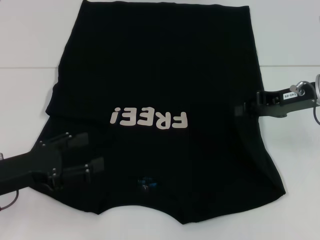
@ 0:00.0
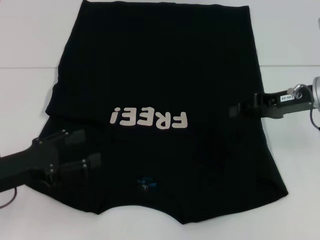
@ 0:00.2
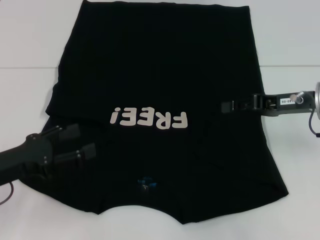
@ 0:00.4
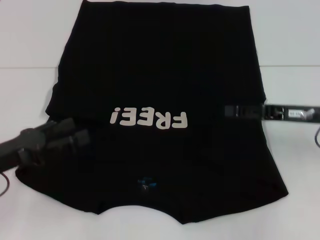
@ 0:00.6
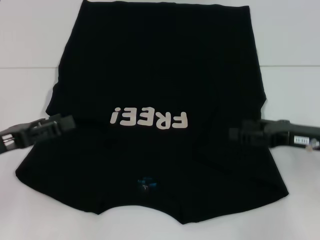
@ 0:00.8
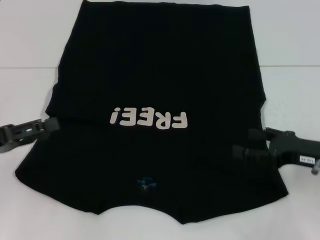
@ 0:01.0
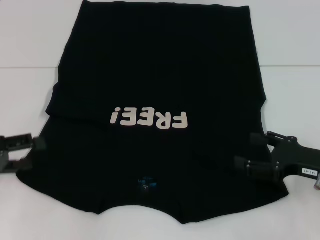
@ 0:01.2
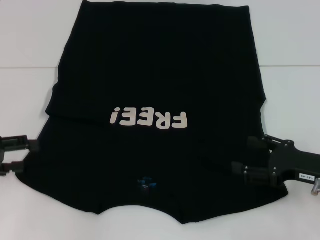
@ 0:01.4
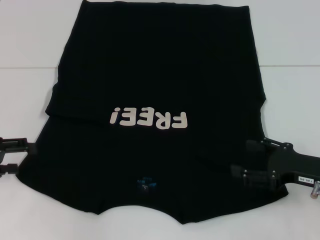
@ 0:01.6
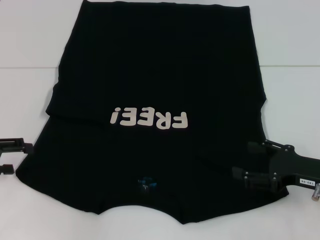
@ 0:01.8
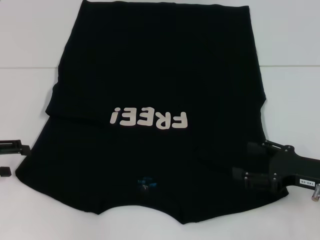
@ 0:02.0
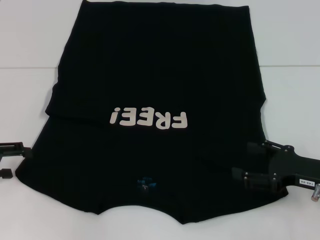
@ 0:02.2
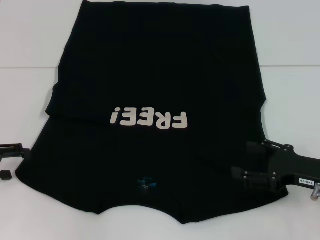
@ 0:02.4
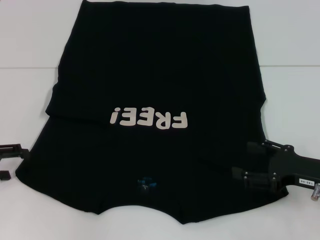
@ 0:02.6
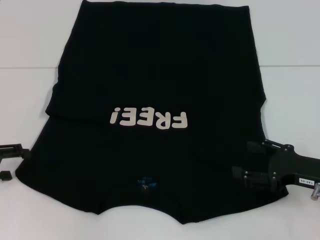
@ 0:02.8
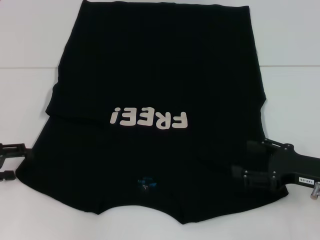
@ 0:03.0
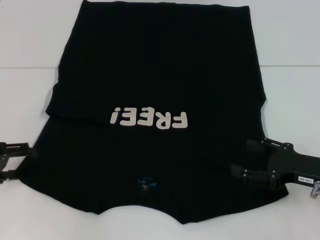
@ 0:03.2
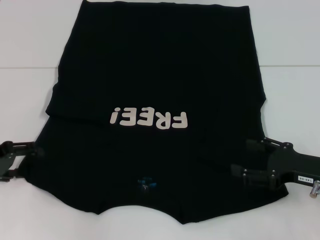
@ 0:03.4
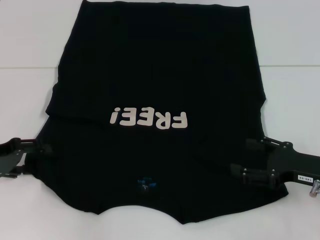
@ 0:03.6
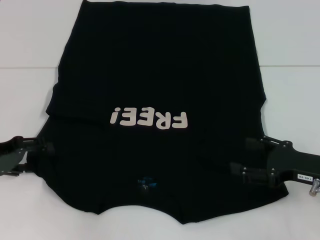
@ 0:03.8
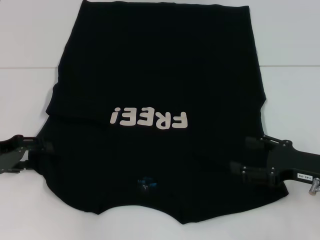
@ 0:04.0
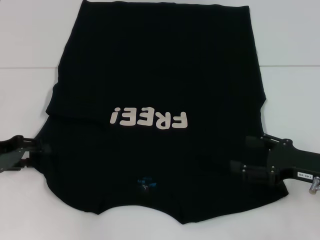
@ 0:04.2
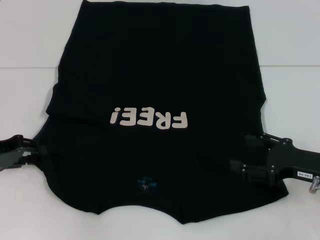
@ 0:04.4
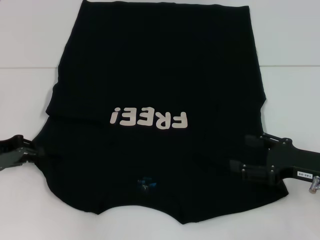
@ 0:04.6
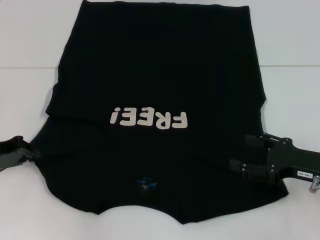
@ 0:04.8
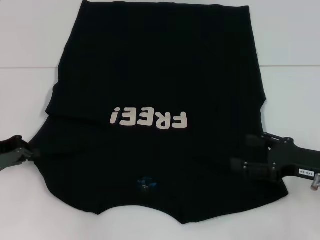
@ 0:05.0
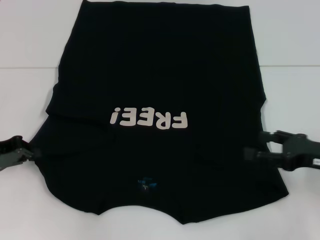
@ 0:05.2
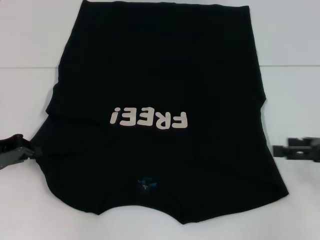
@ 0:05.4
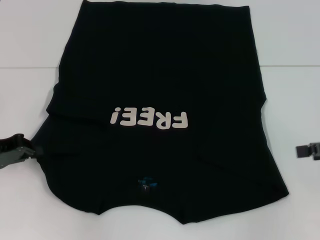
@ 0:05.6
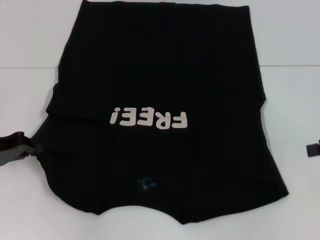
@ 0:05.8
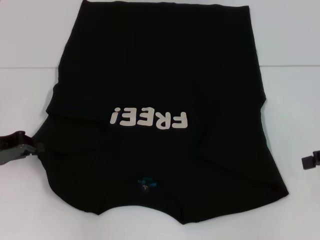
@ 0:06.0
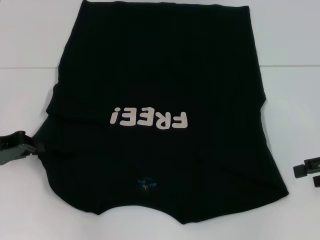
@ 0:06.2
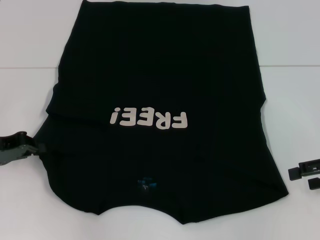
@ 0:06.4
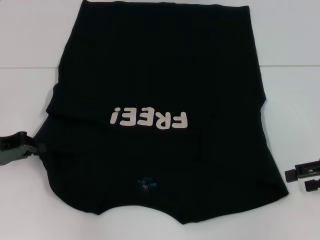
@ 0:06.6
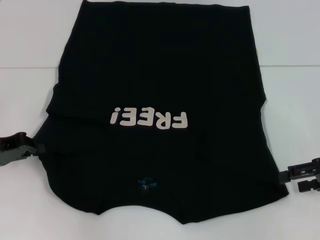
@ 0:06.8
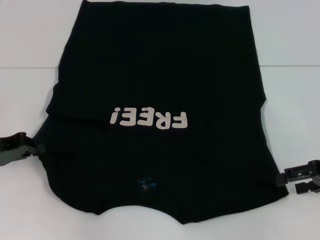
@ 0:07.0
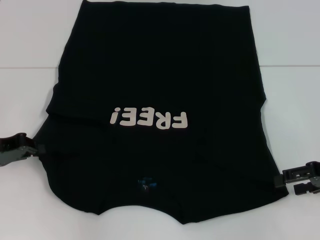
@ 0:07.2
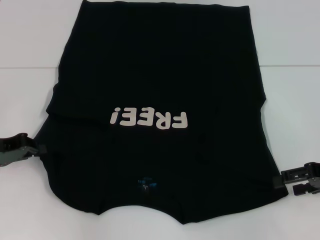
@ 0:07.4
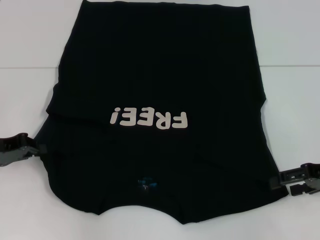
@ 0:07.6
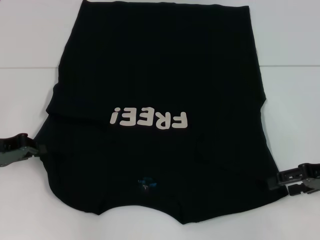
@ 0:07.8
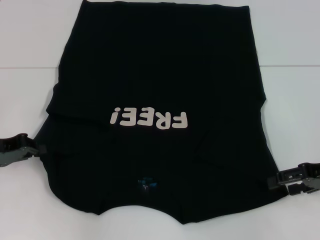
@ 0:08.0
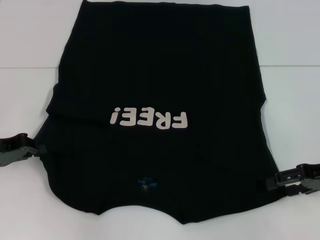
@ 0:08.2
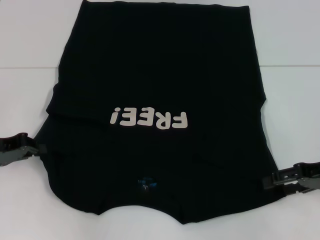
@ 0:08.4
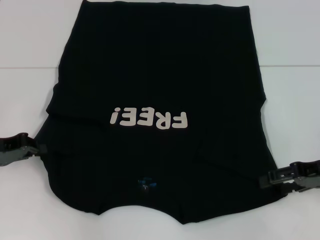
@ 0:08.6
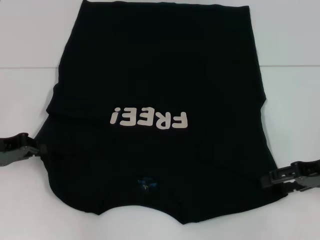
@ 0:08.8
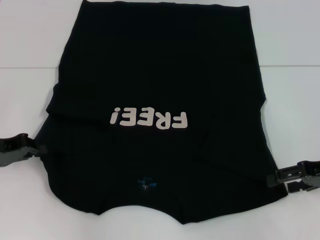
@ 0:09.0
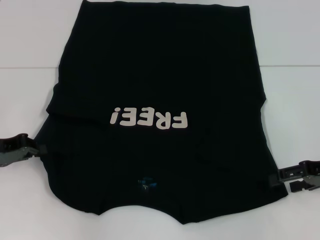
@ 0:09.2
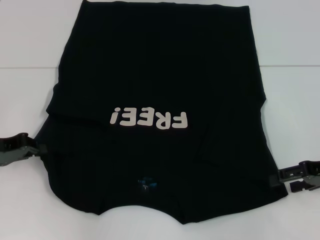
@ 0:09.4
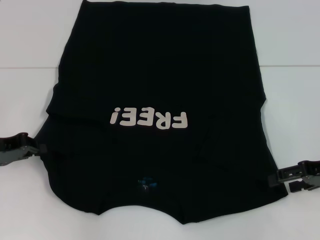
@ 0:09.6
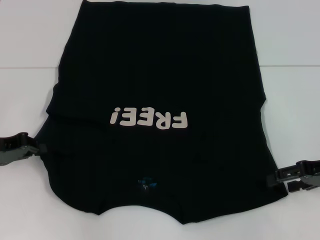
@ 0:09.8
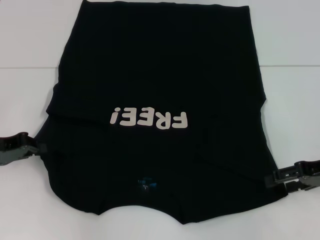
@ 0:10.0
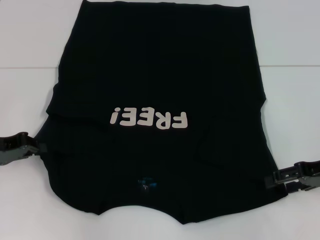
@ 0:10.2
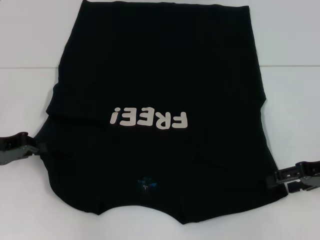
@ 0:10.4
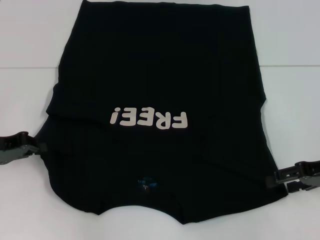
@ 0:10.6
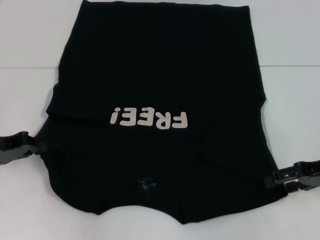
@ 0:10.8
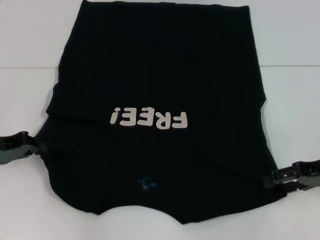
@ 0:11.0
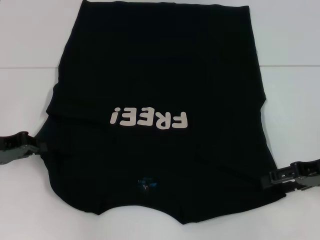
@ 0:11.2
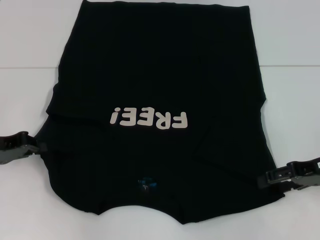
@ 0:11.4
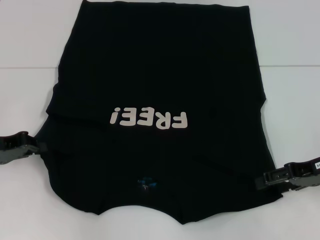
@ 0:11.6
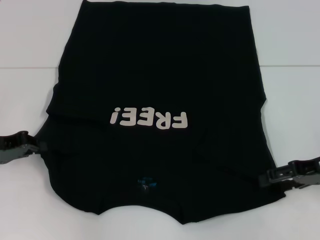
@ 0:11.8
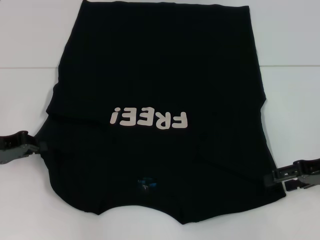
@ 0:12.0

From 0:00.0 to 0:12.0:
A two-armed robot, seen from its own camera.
Step, from 0:00.6 to 0:05.4: Grab the bottom left corner with your left hand.
From 0:00.0 to 0:01.6: The right gripper heads backward and downward, covering approximately 15 cm, and opens; the left gripper shifts approximately 10 cm to the left.
From 0:01.6 to 0:04.4: There are only small adjustments of the grippers.
From 0:04.4 to 0:06.0: The right gripper heads upward and to the right, covering approximately 10 cm; the left gripper closes its fingers.
From 0:06.0 to 0:07.6: The right gripper shifts about 5 cm downward.
From 0:07.6 to 0:09.0: The grippers make only small movements.
From 0:09.0 to 0:10.4: Neither gripper changes place.
From 0:10.4 to 0:12.0: There are only small adjustments of the grippers.

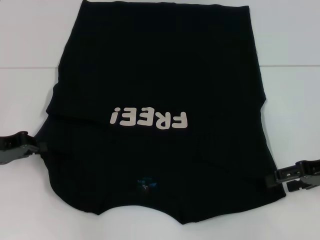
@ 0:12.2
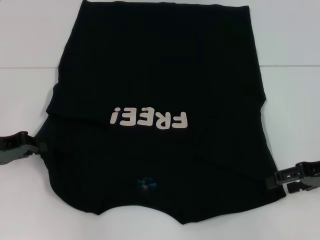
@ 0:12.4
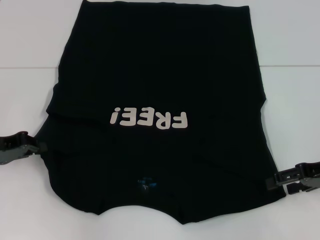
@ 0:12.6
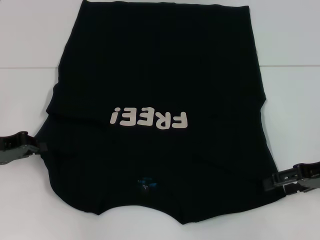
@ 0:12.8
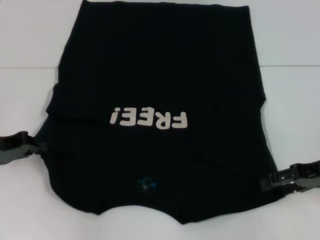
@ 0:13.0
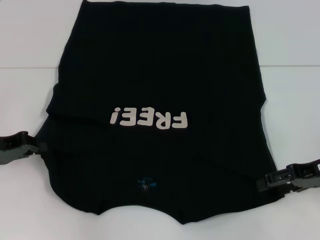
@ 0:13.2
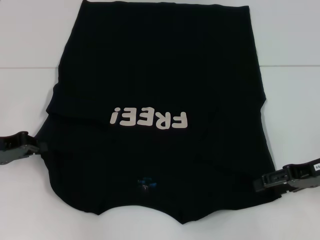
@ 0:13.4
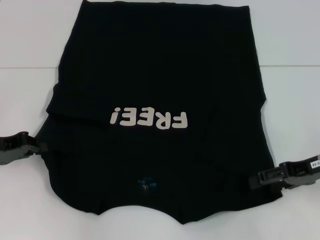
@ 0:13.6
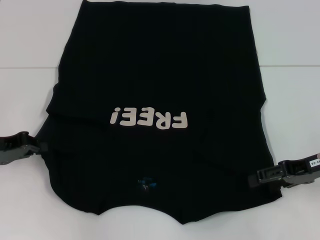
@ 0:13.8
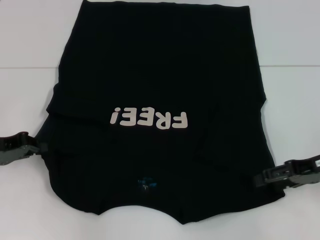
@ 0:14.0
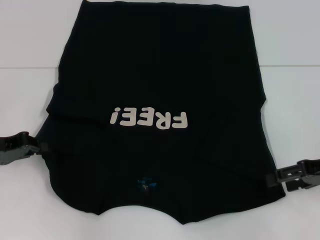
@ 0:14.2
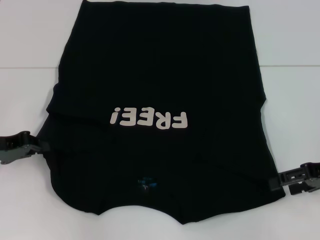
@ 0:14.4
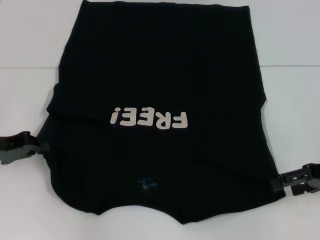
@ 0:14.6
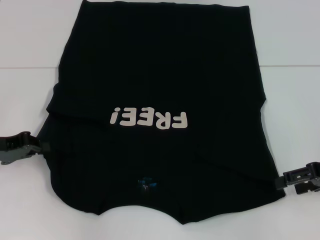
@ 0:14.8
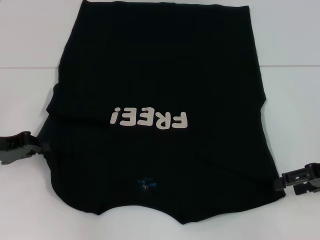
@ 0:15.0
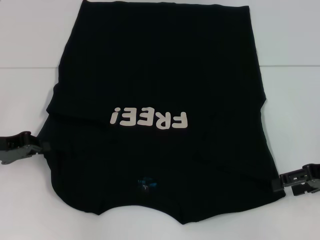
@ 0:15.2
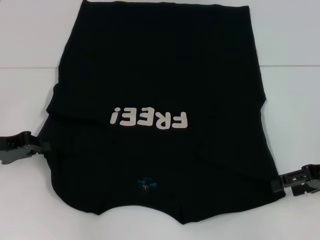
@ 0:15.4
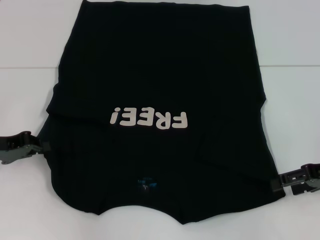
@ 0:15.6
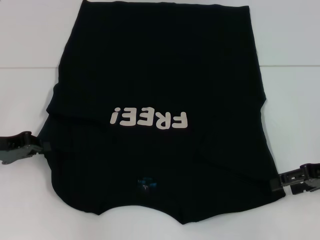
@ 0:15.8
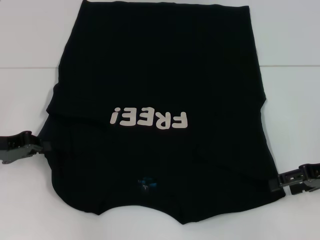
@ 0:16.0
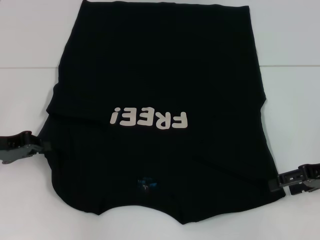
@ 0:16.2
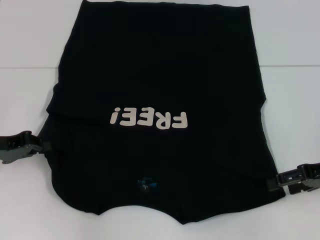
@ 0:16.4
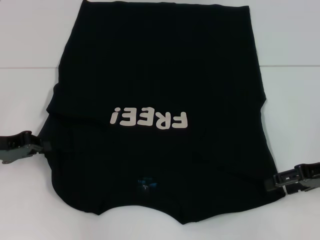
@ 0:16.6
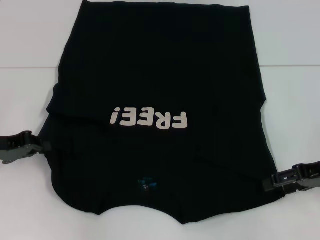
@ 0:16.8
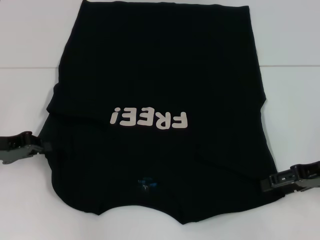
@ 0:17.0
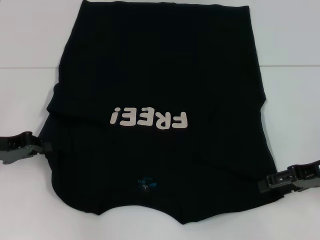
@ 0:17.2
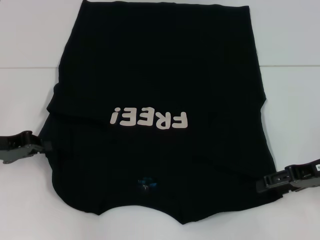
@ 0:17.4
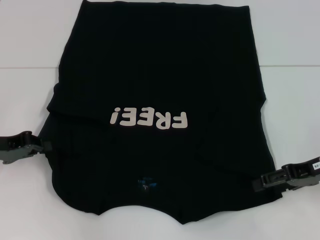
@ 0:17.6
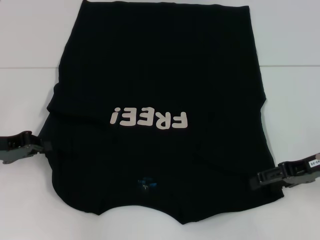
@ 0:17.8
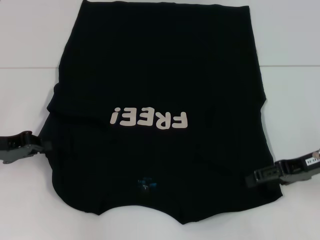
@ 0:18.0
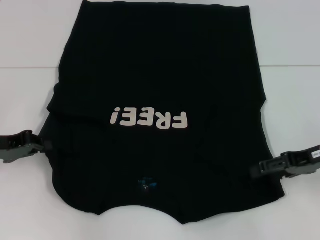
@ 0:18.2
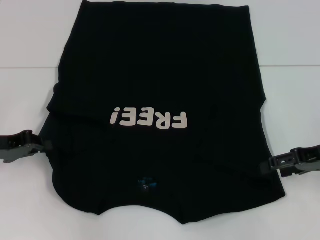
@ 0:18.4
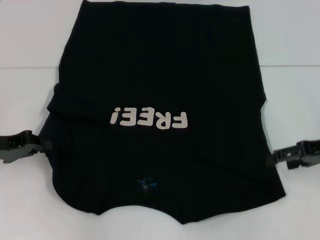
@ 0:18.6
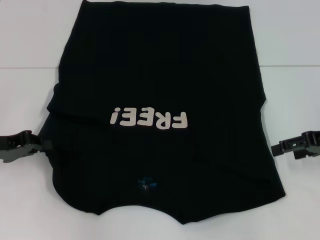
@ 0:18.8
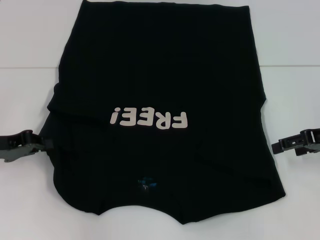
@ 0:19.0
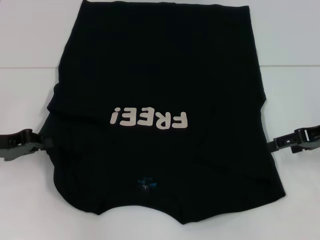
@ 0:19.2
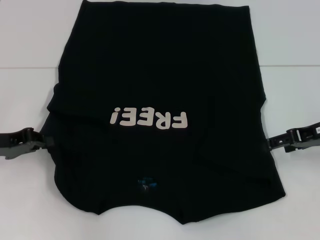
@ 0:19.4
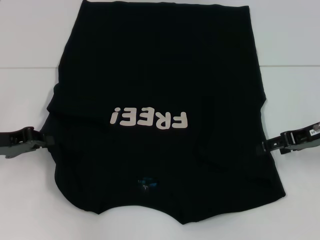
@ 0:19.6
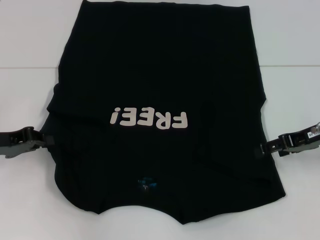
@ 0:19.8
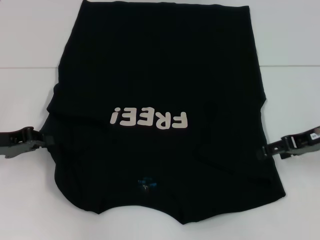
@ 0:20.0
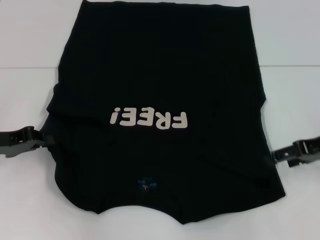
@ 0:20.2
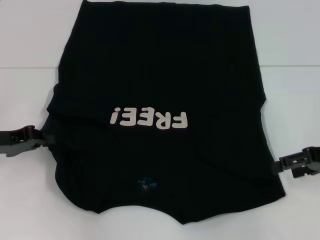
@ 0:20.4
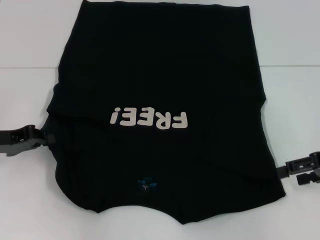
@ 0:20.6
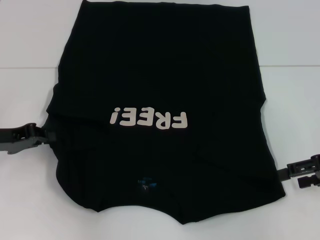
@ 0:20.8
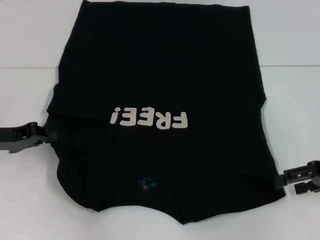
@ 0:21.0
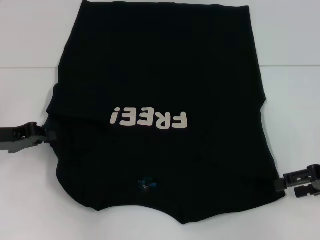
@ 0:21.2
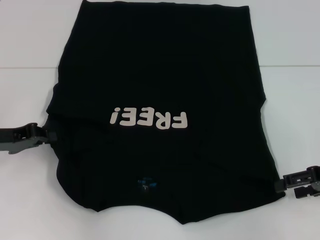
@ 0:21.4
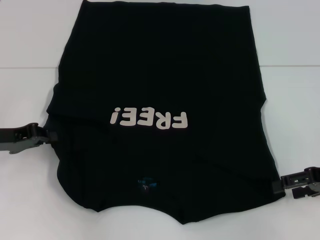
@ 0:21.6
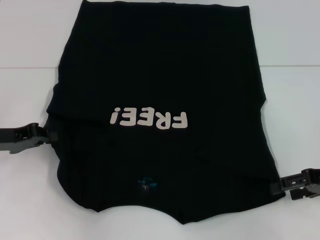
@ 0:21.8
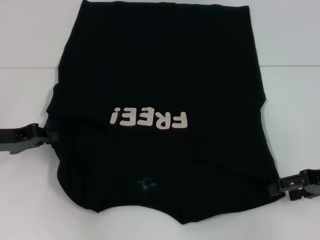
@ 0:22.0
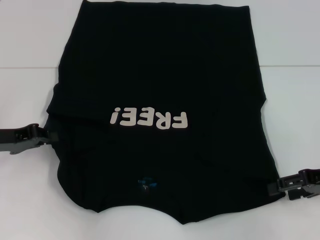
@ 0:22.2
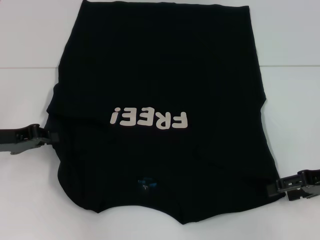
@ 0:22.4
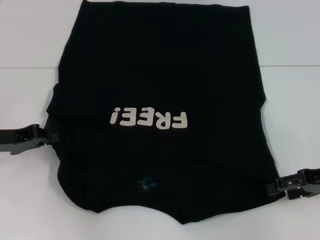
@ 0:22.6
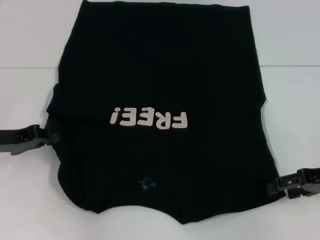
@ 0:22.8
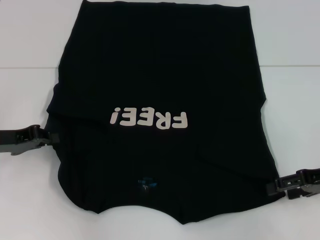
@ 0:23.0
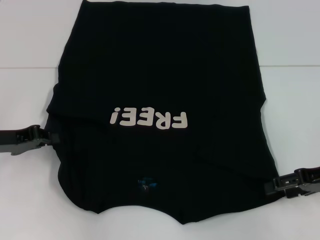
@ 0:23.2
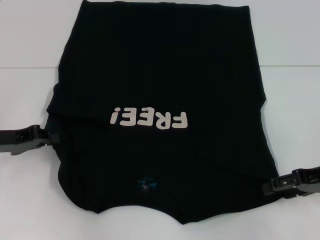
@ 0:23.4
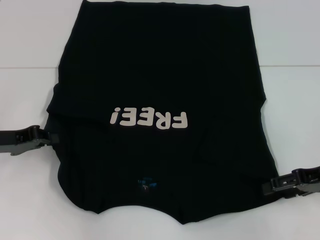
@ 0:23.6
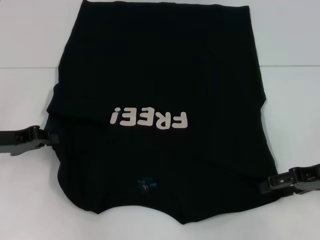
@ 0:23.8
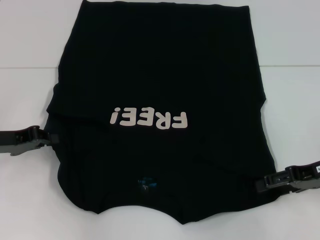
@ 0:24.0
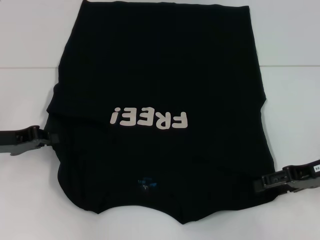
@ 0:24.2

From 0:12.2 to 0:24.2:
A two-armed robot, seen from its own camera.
From 0:12.2 to 0:15.2: The grippers stay close to where they were, moving slightly.
From 0:15.2 to 0:16.6: Neither gripper changes place.
From 0:16.6 to 0:19.8: The grippers make only small movements.
From 0:19.8 to 0:21.2: The right gripper heads backward, covering roughly 5 cm.
From 0:21.2 to 0:24.2: The grippers stay close to where they were, moving slightly.
